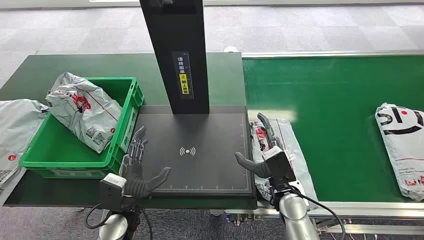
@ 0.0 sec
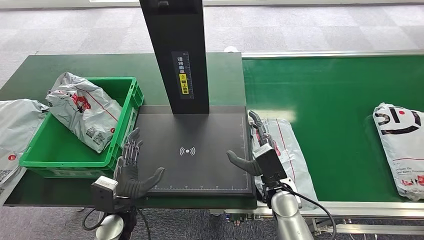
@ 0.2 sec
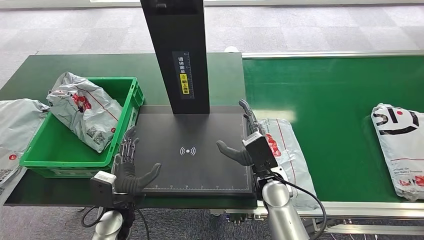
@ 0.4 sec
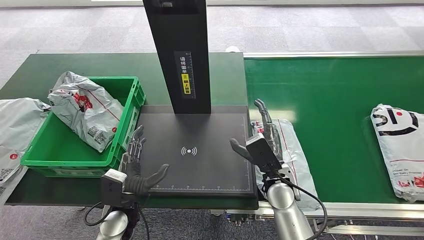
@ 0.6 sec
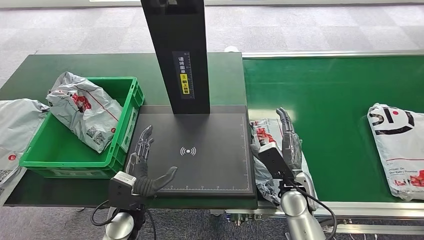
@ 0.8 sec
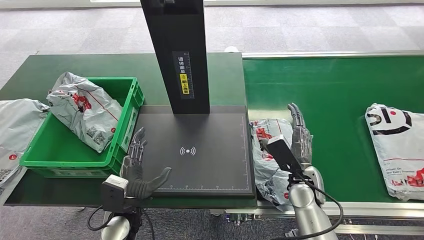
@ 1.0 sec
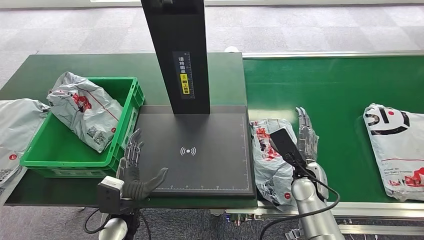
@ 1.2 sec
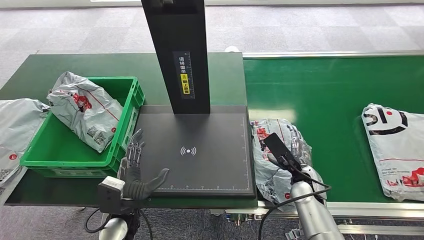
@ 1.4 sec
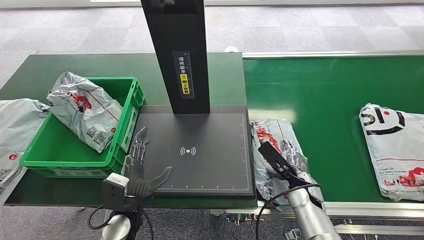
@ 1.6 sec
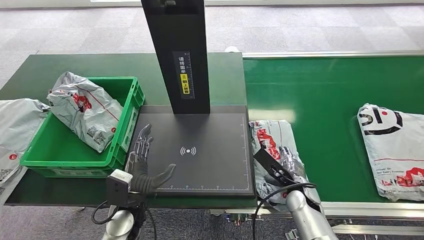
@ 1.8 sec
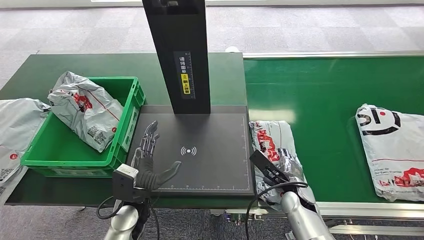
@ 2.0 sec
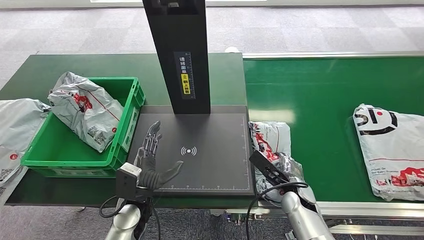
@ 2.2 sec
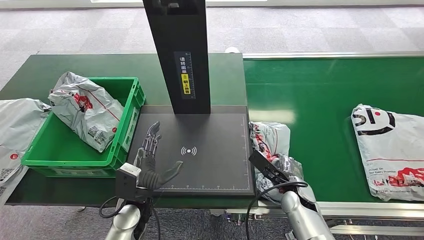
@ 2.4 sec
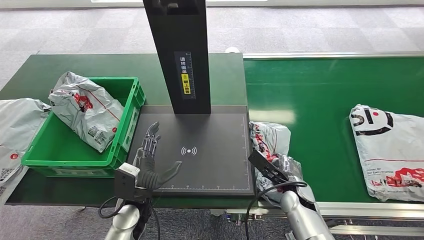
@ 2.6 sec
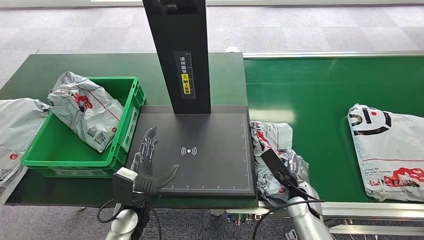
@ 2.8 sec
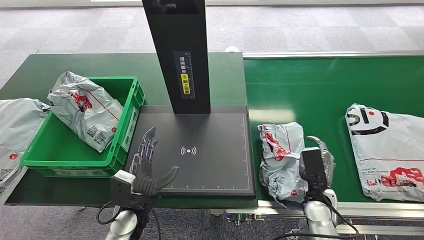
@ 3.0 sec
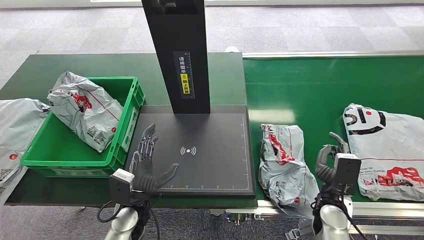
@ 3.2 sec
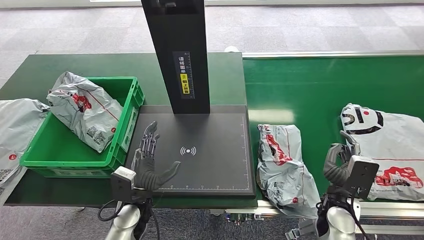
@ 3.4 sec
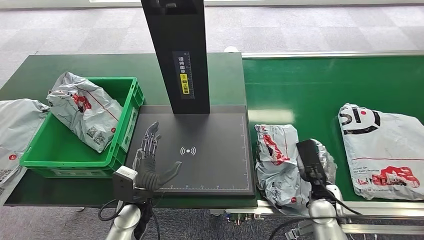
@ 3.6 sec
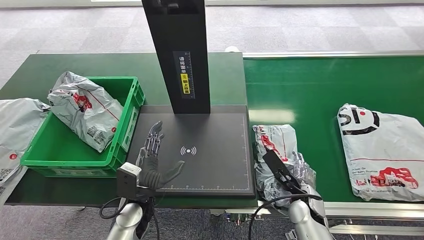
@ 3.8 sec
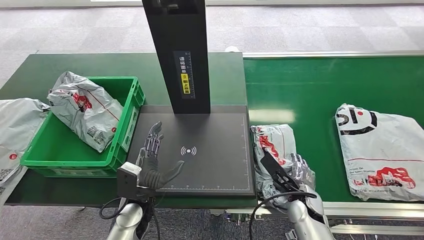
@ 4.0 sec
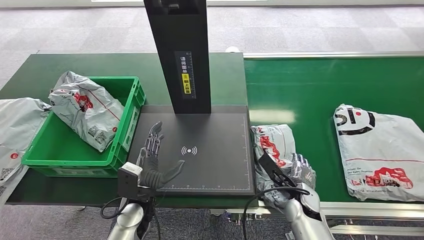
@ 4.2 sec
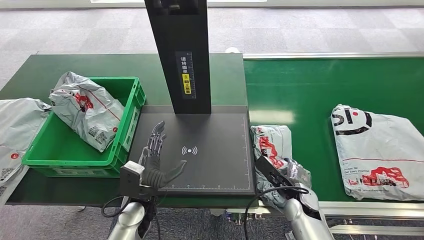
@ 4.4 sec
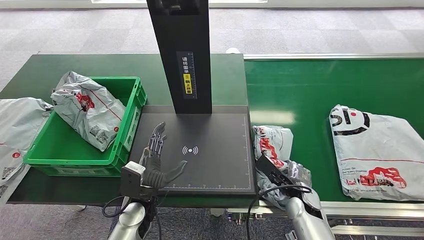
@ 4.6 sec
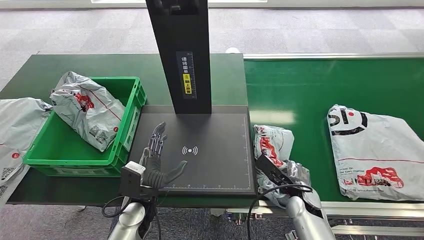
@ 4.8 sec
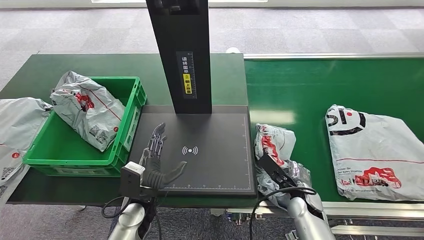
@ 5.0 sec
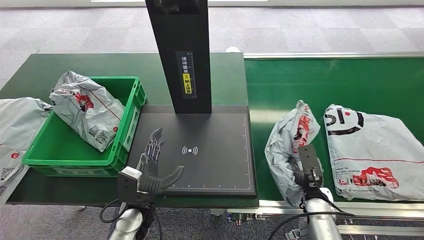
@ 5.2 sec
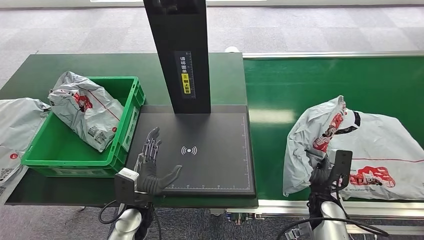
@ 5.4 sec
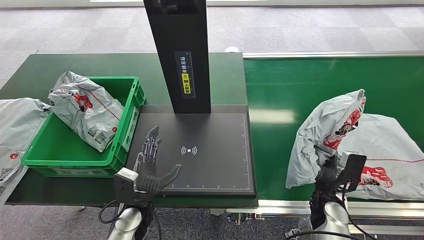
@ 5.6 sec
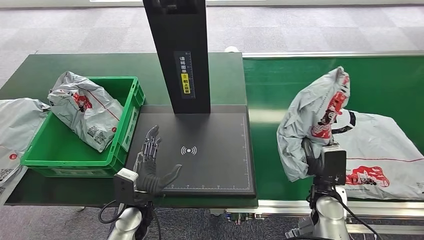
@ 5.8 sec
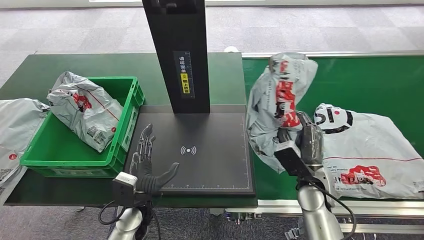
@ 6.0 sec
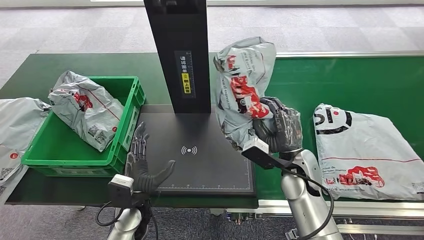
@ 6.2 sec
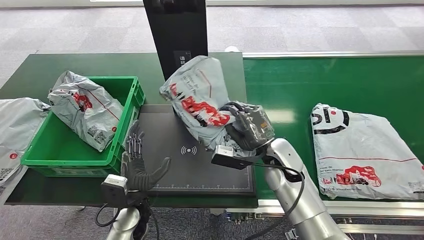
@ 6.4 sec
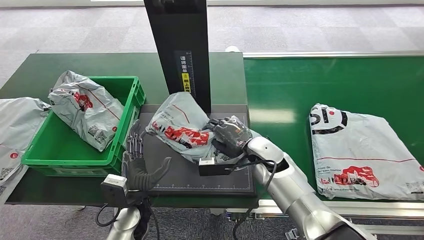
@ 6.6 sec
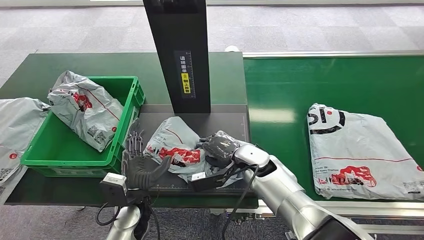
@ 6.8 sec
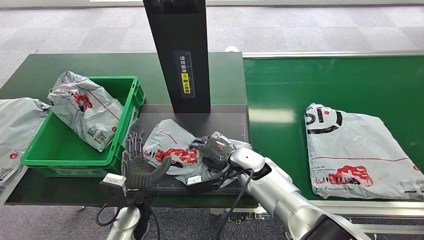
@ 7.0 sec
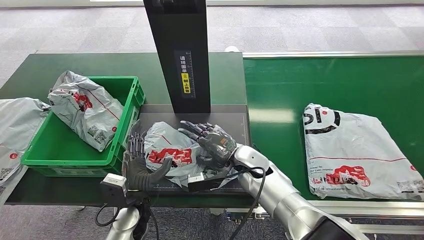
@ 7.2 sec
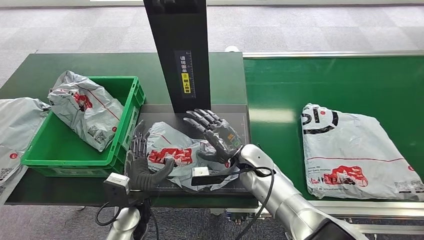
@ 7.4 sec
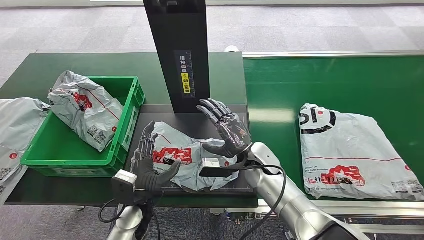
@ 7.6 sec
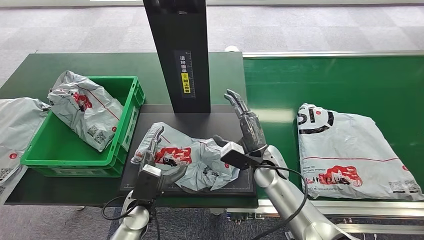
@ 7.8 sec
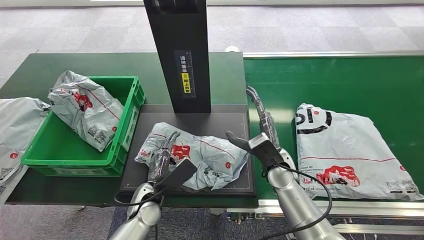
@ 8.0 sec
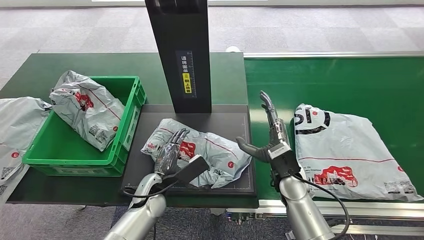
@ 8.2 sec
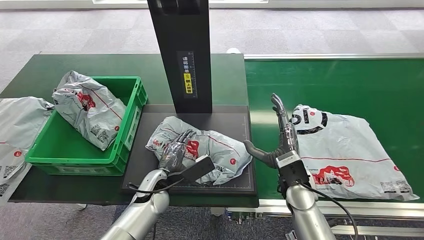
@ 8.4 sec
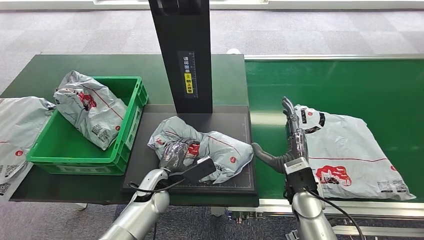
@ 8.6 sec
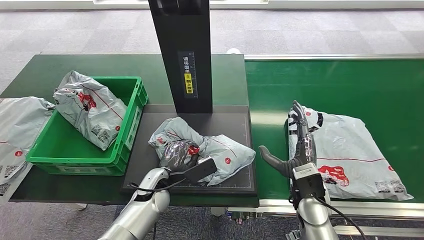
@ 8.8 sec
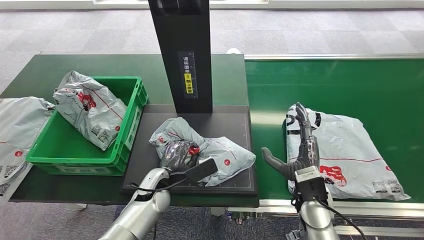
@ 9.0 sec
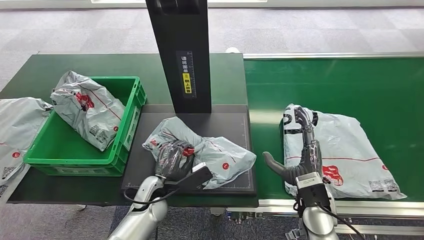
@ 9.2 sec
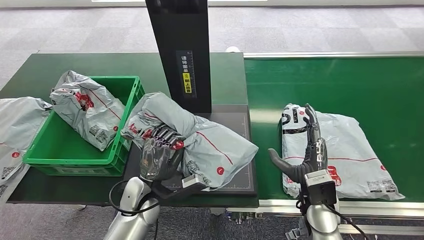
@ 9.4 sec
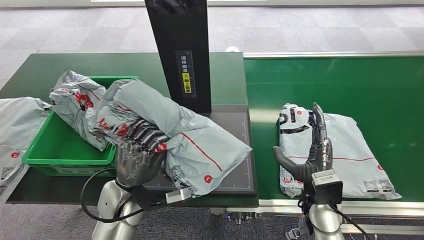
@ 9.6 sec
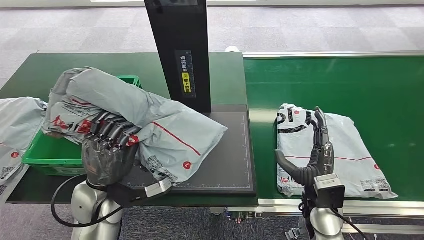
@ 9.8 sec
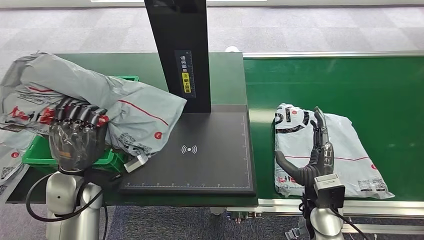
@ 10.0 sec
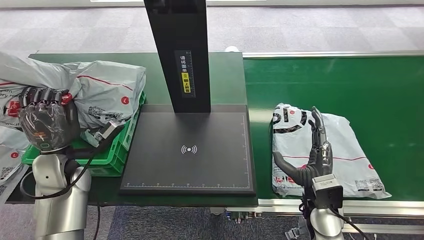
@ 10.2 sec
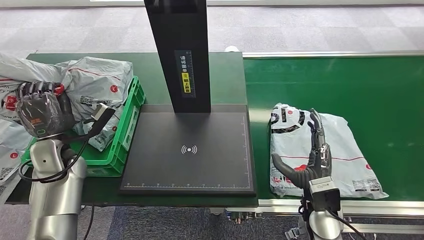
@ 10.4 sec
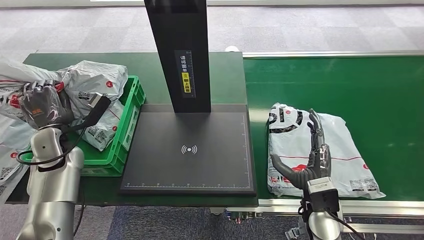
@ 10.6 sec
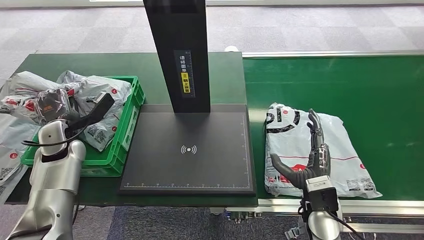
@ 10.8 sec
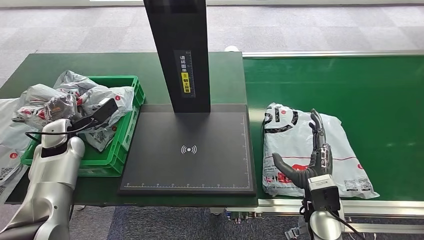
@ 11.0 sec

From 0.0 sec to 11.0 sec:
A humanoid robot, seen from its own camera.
Task of the whole recording: Weigh the package on the weighing device and place it in the left basket.
Step, from 0.0 sec to 5.8 sec: Pick up the package from the conveyor belt.
Step, from 6.0 sec to 7.4 sec: Place the package onto the inbound machine.
Step, from 7.8 sec to 10.0 sec: Pick up the package from the inbound machine.
From 1.6 sec to 3.2 sec: The right hand changes place by about 5 cm.

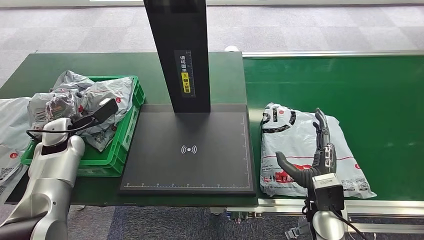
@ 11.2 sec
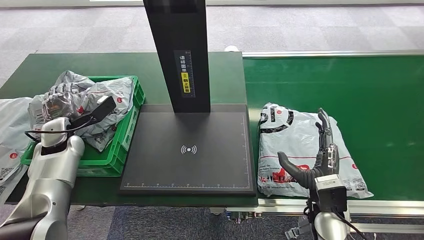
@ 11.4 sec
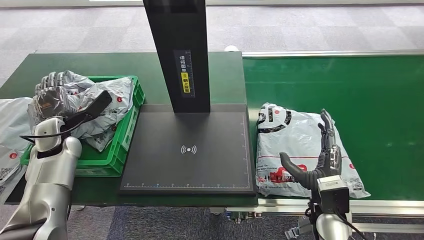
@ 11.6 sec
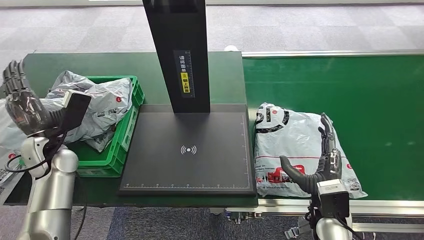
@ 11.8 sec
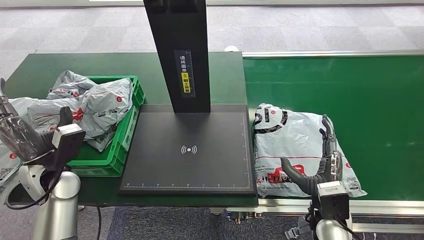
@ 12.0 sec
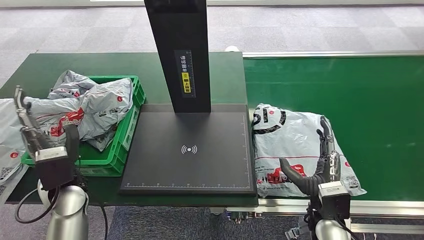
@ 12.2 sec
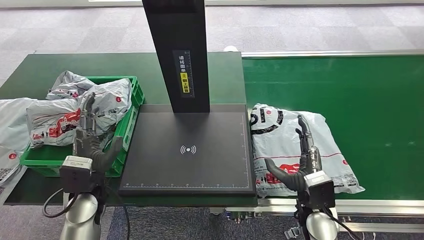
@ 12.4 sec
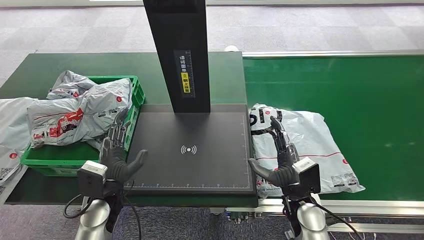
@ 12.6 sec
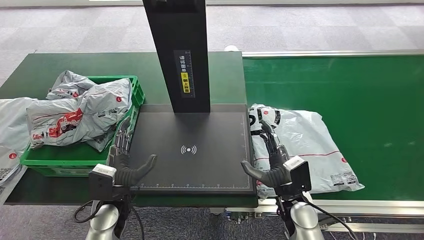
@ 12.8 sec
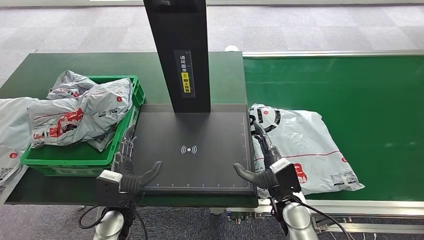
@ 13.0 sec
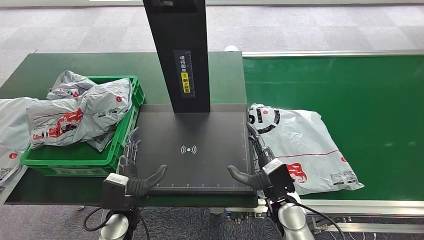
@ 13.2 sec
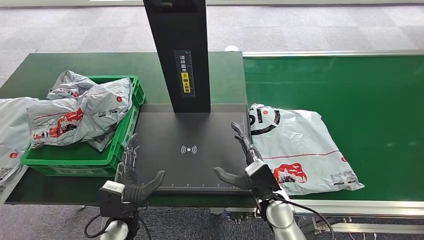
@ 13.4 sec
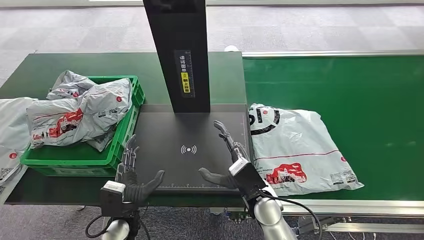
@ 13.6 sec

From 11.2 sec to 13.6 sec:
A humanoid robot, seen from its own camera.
Task of the whole recording: Weigh the package on the weighing device and place it in the left basket.
Step, from 11.2 sec to 13.4 sec: Place the package into the parcel locker.
From 11.2 sec to 12.4 sec: The left hand is displaced to the right and backward by roughly 20 cm.
From 12.4 sec to 13.6 sec: The left hand goes approximately 15 cm downward, backward and to the right; the right hand goes about 10 cm to the left.
